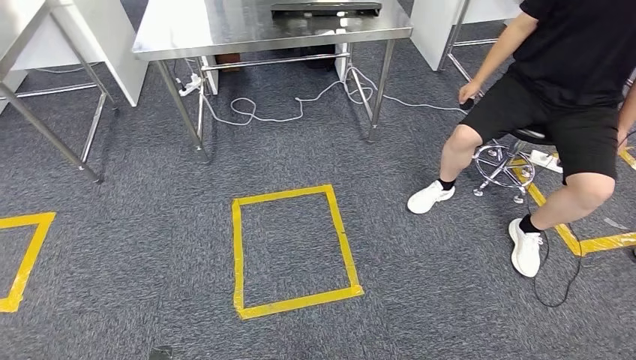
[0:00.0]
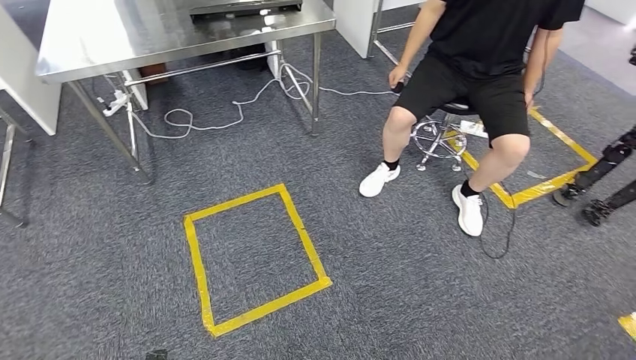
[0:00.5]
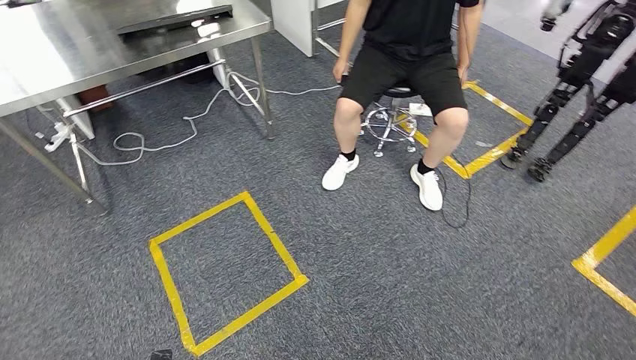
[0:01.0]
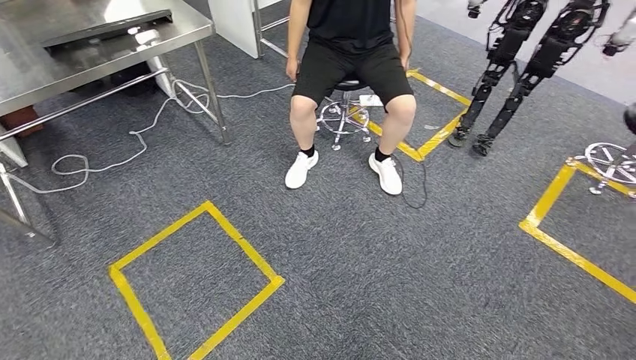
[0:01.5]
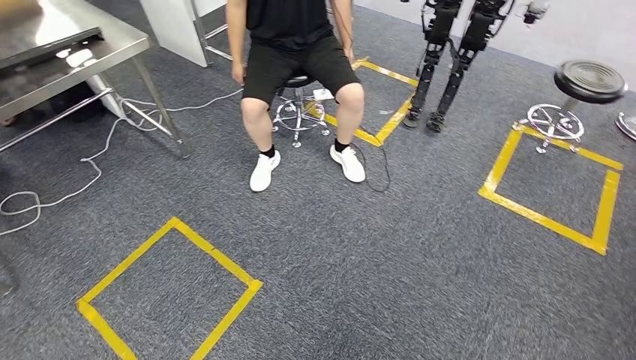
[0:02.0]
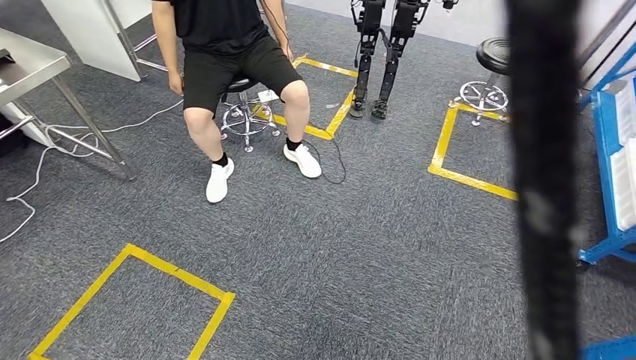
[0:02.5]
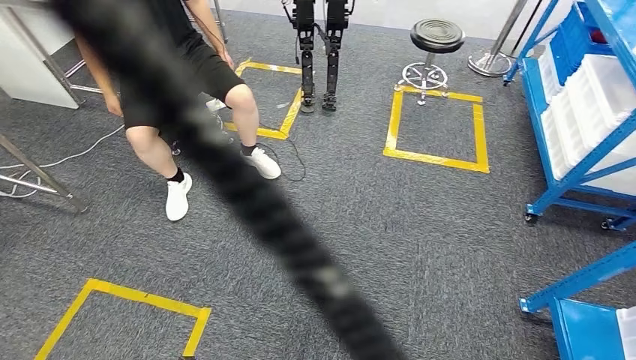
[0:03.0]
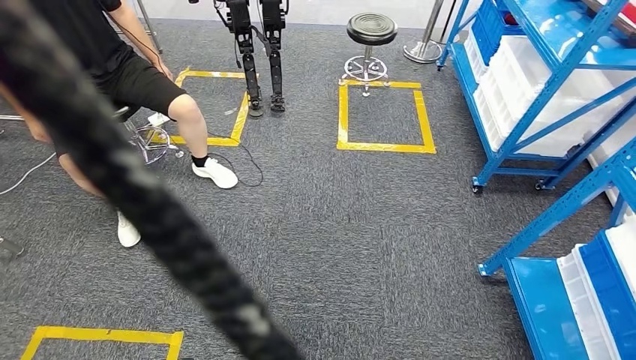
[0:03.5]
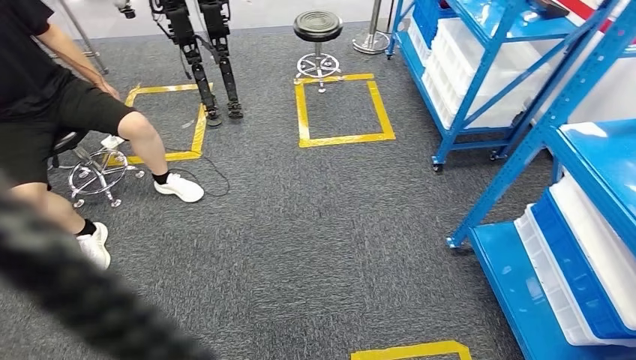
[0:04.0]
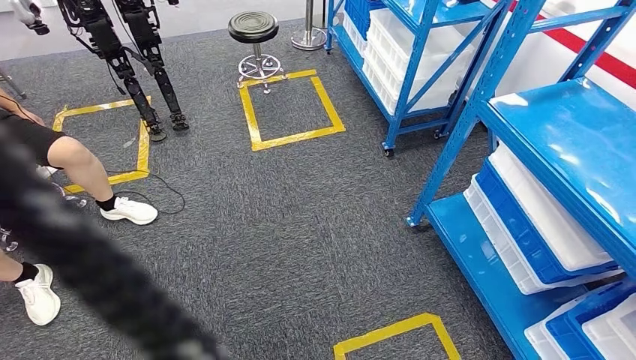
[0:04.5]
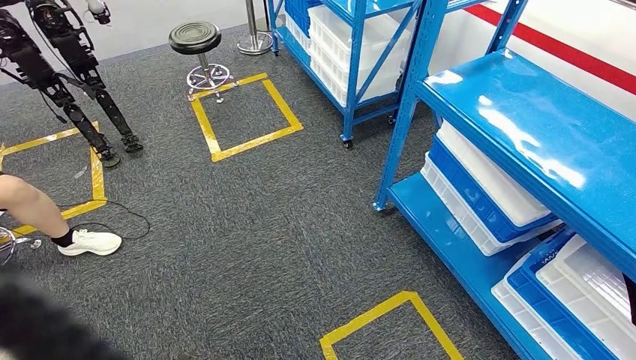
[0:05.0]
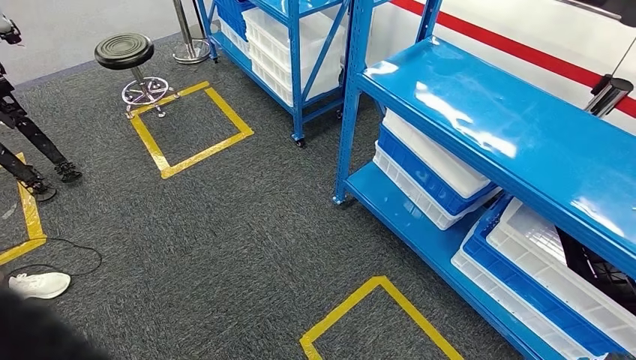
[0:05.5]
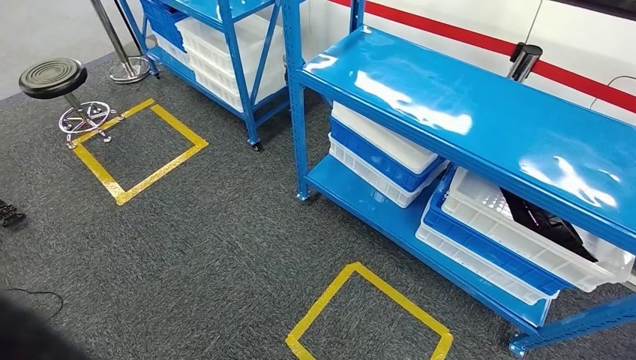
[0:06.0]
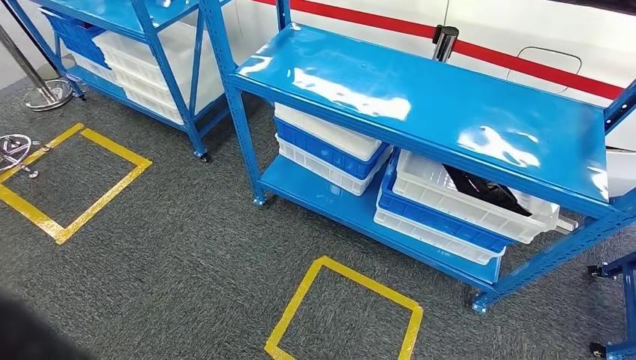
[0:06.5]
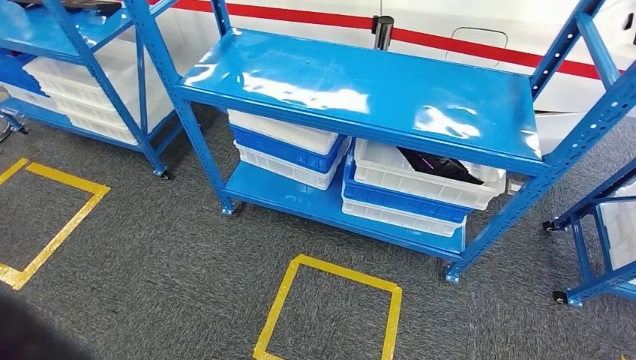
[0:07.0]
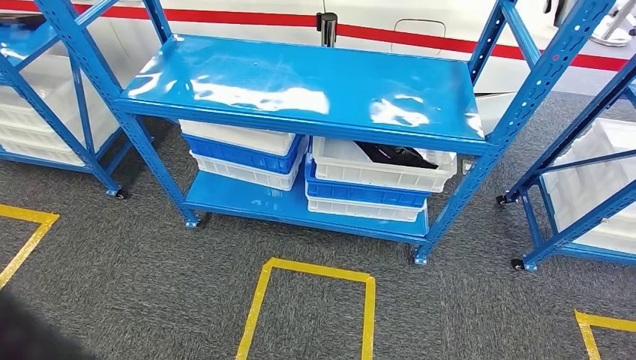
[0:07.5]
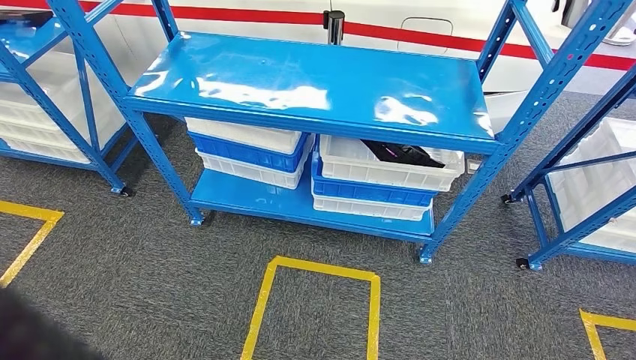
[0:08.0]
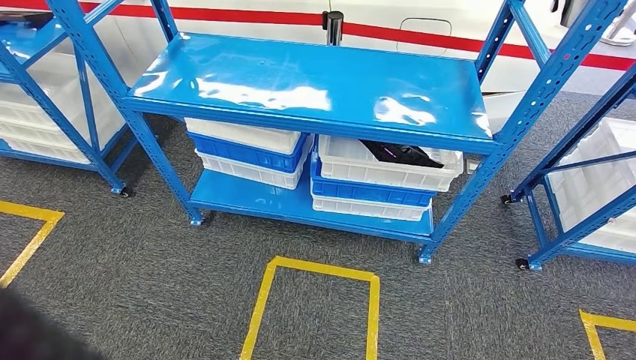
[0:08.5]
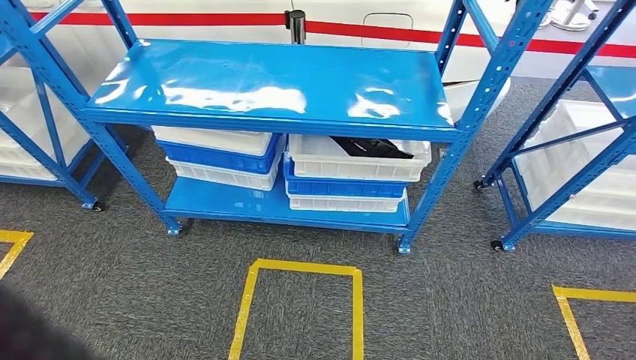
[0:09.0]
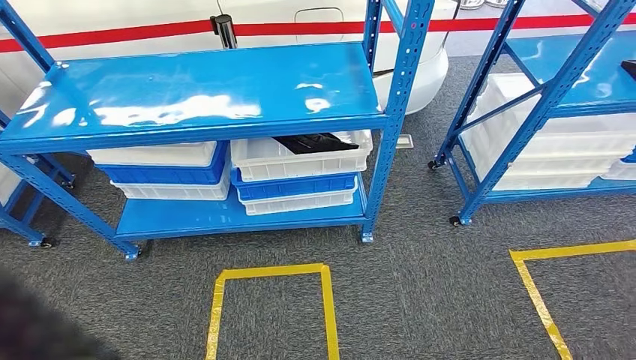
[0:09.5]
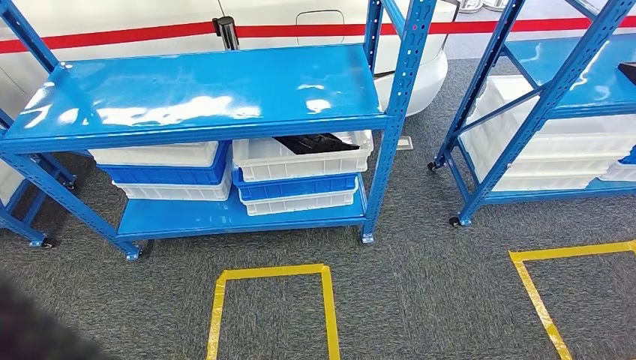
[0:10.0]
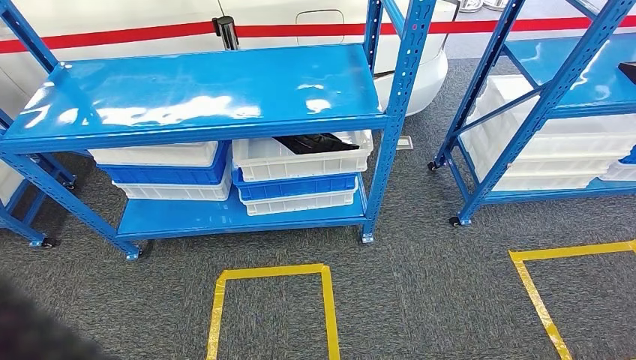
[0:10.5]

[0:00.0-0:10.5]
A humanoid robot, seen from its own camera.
Step, 0:00.0 to 0:10.5: Move to the initial position of the shelf.
